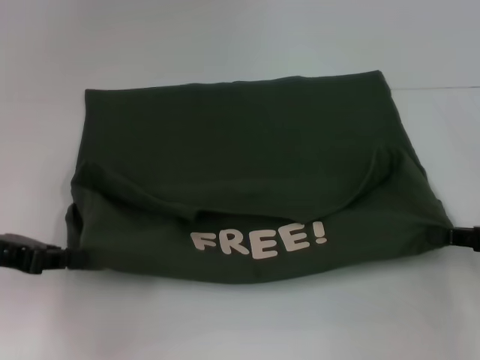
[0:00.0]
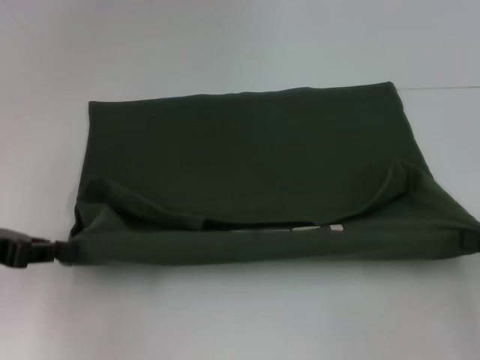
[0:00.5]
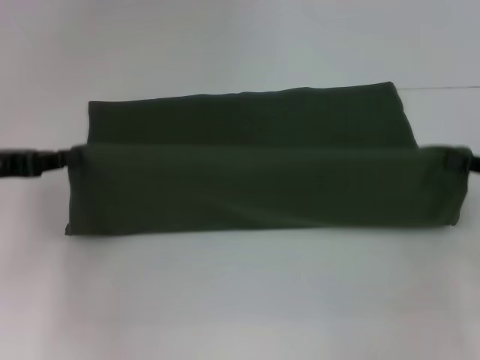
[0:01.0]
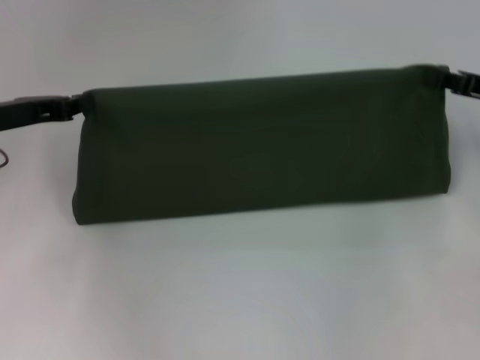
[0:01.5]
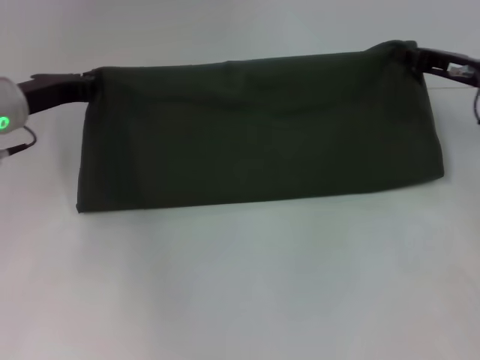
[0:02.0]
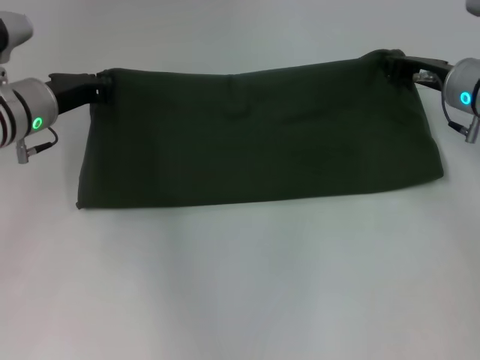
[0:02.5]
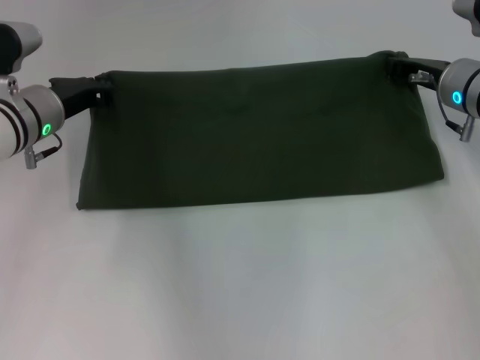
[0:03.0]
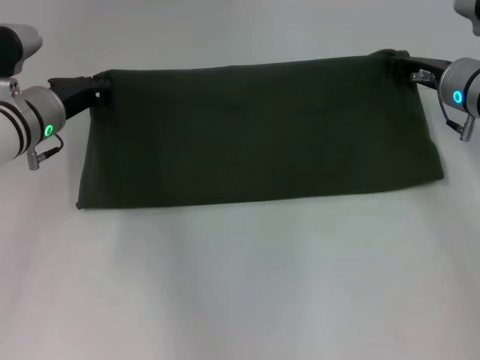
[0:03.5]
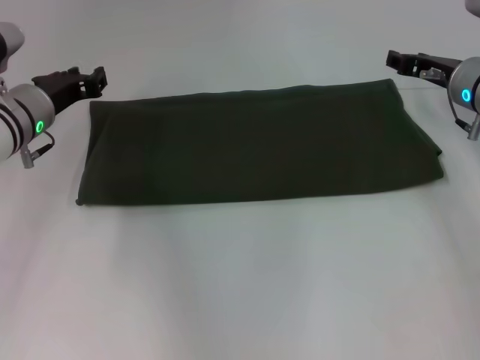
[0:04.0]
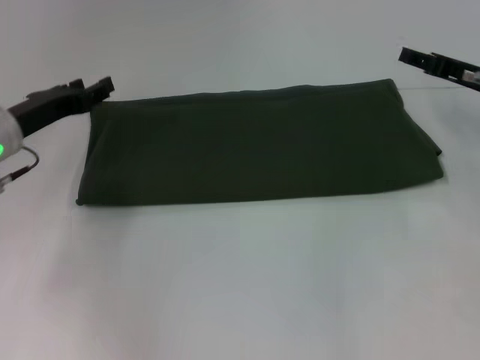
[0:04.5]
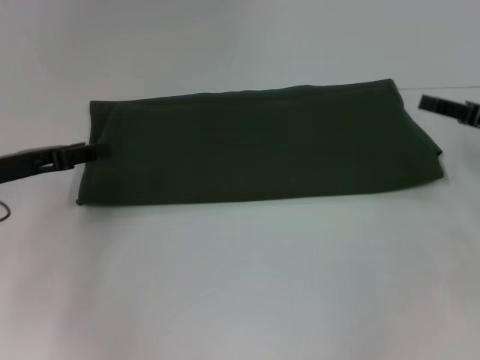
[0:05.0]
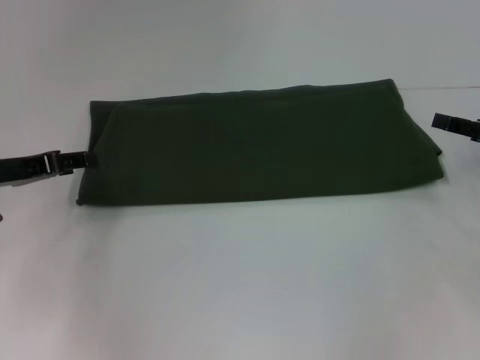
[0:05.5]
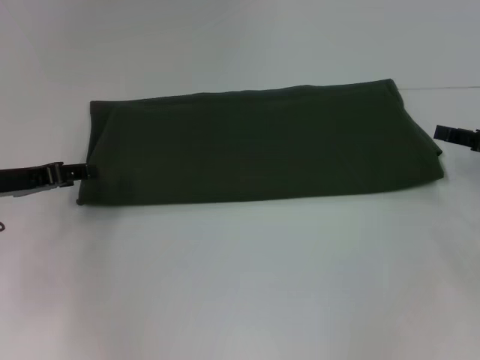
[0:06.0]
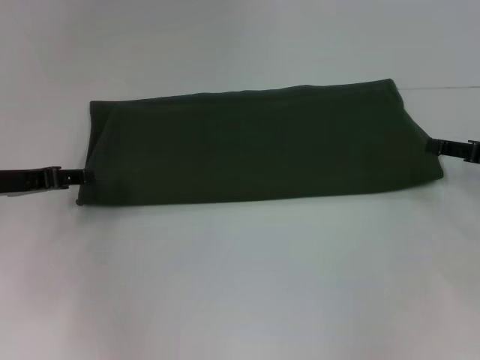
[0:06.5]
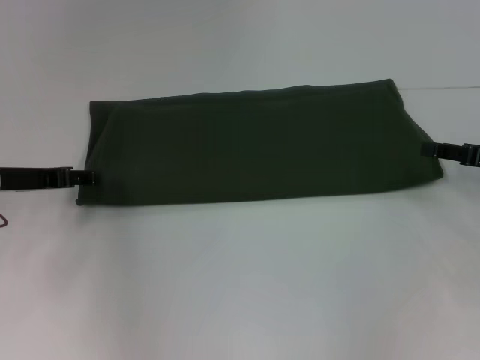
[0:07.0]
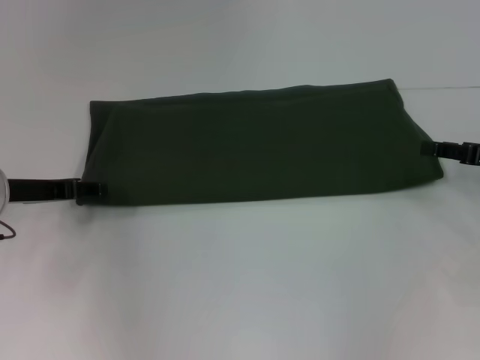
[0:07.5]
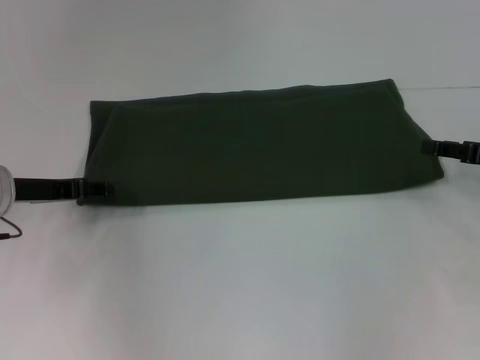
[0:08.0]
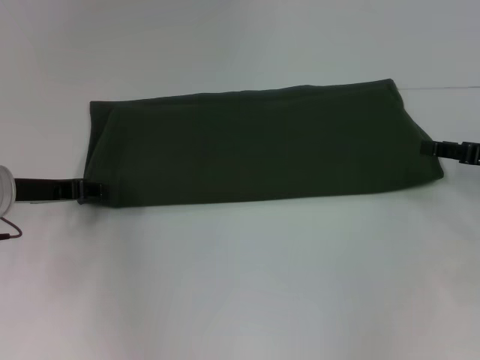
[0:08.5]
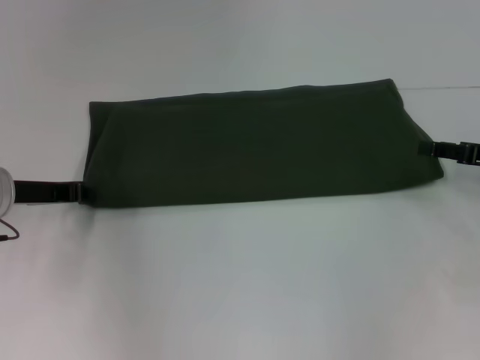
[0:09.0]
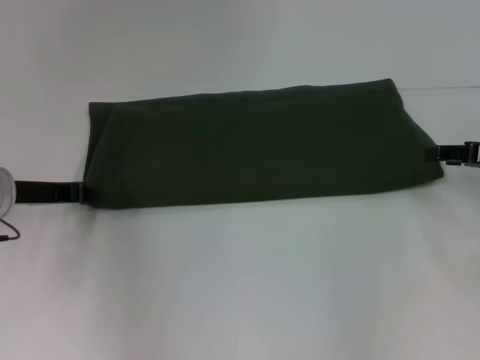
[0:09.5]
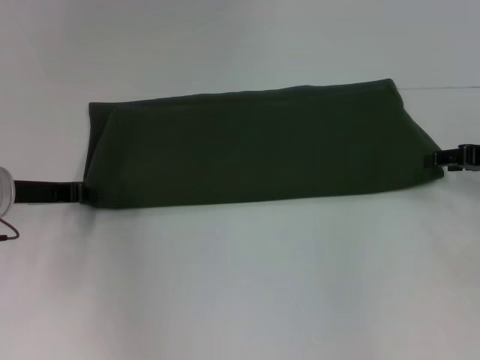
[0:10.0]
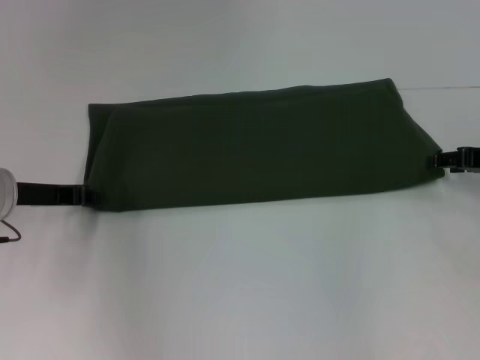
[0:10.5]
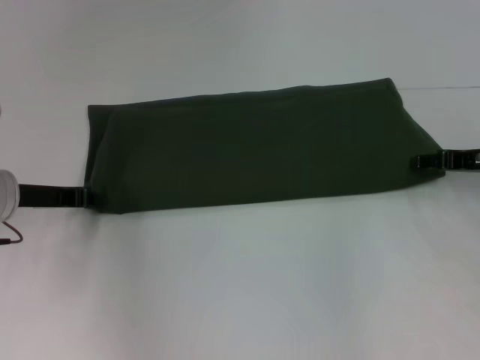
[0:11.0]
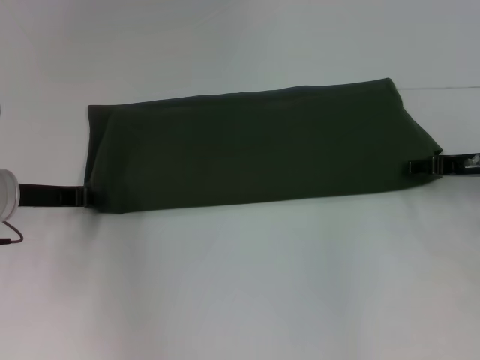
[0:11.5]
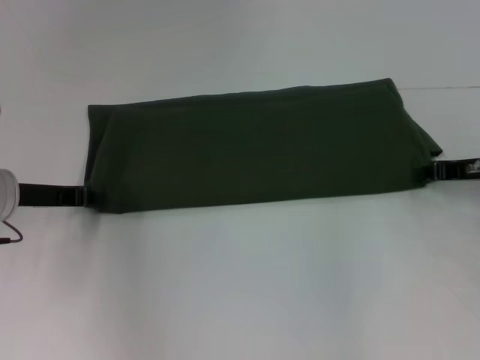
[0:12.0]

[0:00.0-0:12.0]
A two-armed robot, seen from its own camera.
Step, 0:00.5 to 0:03.5: Fold the clothes with your left hand.
Step, 0:00.5 to 0:03.5: Fold the clothes with your right hand.
0:00.0 to 0:02.0: The left gripper shifts roughly 15 cm forward and to the right, while the right gripper moves forward and to the left, about 15 cm.
0:02.0 to 0:04.0: The right gripper opens. Meanwhile the left gripper opens its fingers.
0:04.0 to 0:06.0: The left gripper goes approximately 10 cm backward and to the left. The right gripper heads to the right and backward, covering some 15 cm.
0:06.0 to 0:08.0: The grippers make only small movements.
0:08.0 to 0:10.0: The left gripper closes.
0:10.0 to 0:12.0: The grippers stay close to where they were, moving slightly.

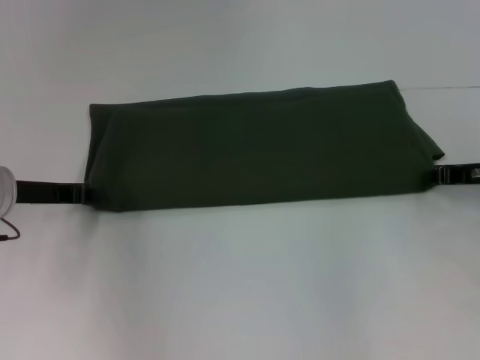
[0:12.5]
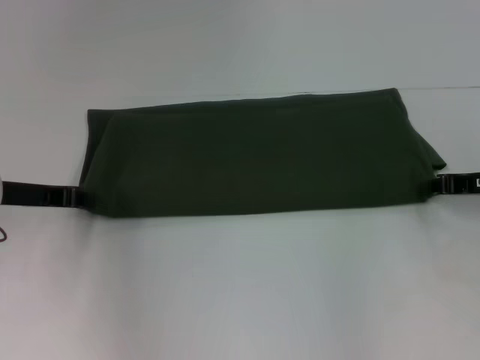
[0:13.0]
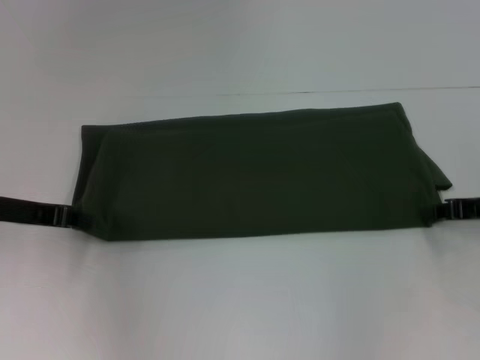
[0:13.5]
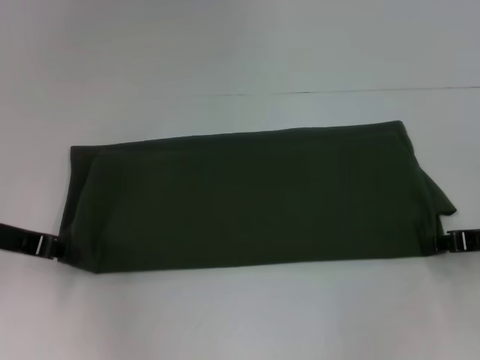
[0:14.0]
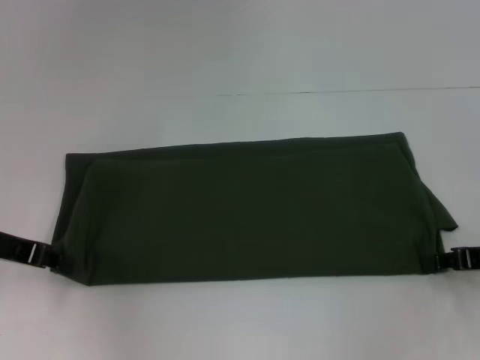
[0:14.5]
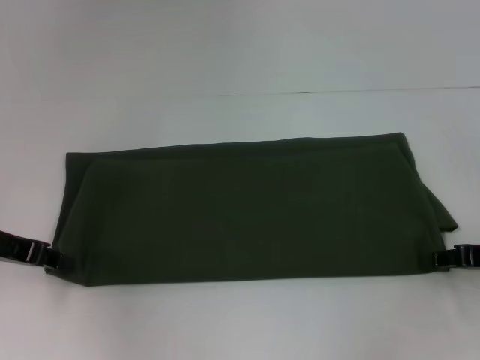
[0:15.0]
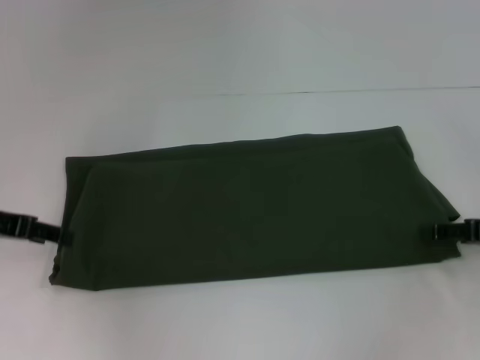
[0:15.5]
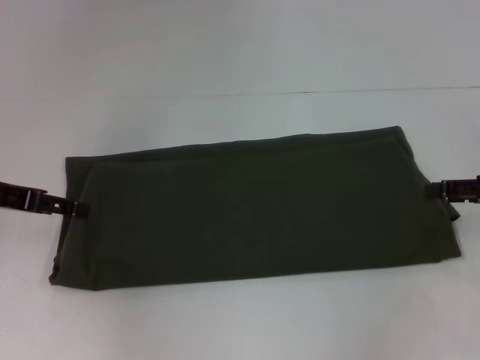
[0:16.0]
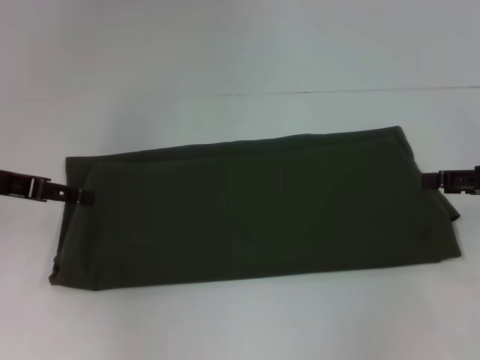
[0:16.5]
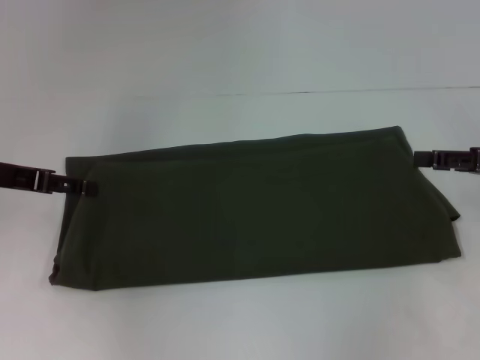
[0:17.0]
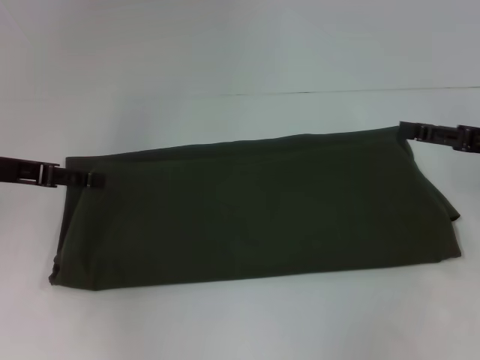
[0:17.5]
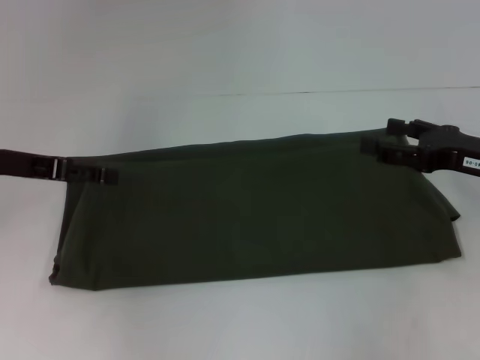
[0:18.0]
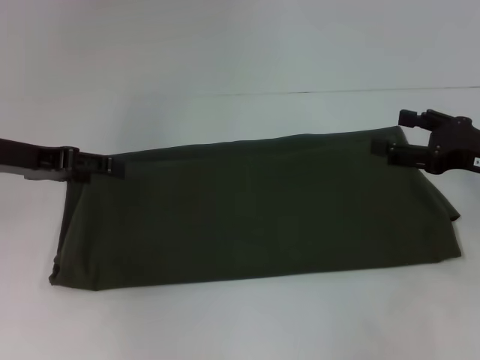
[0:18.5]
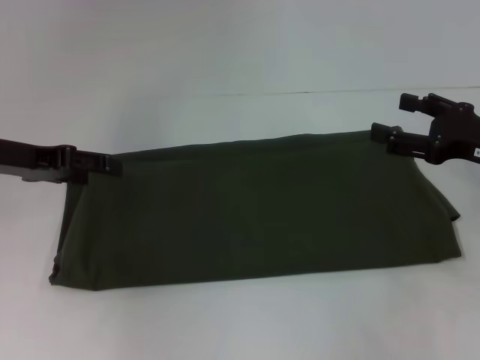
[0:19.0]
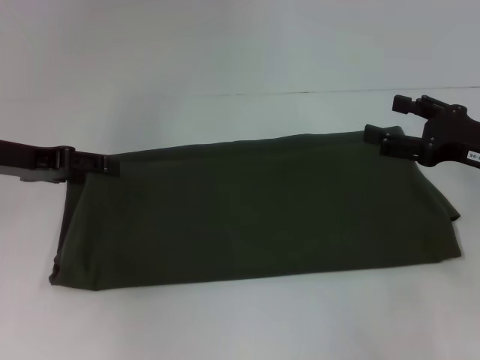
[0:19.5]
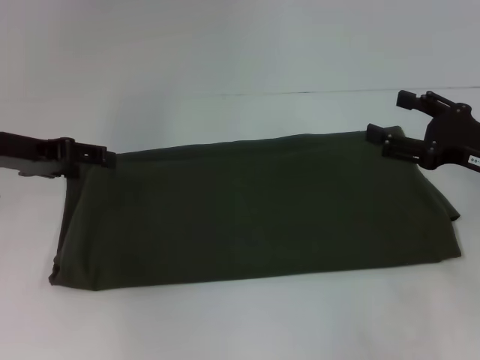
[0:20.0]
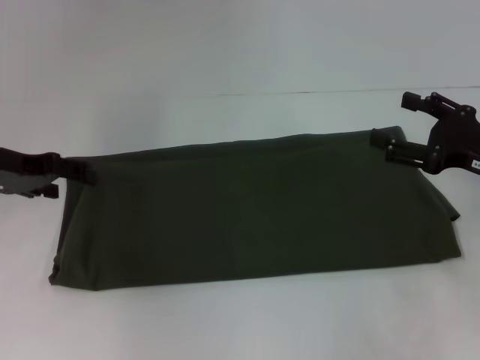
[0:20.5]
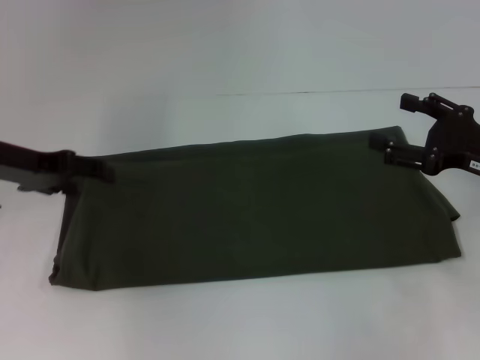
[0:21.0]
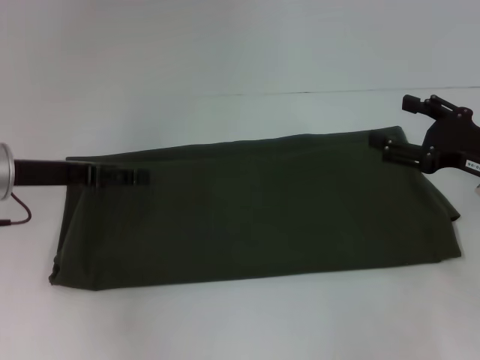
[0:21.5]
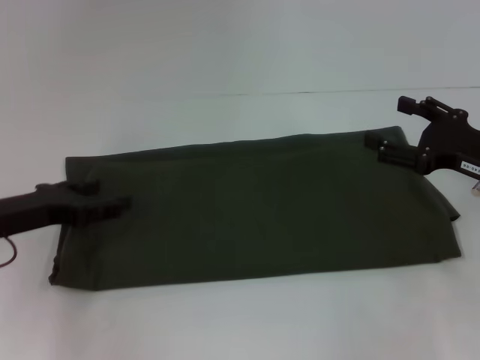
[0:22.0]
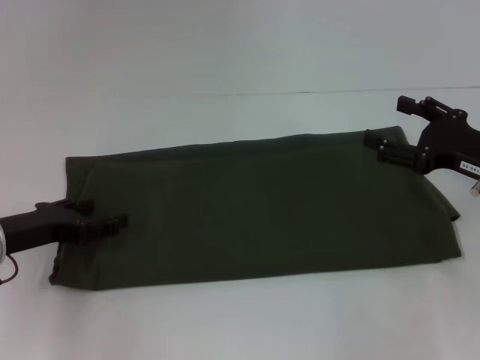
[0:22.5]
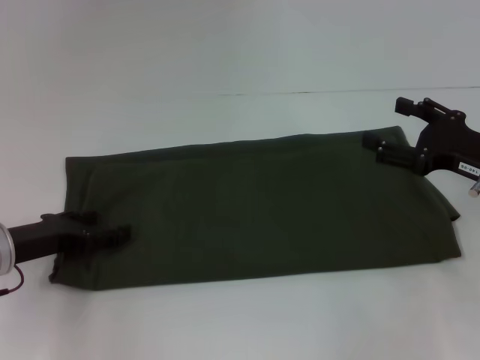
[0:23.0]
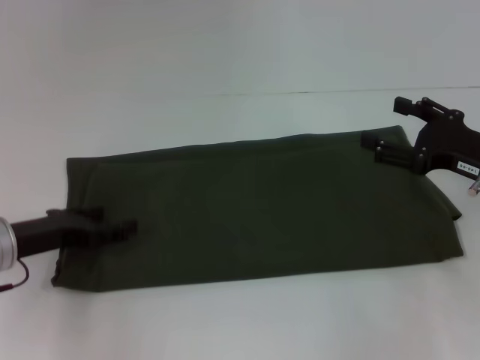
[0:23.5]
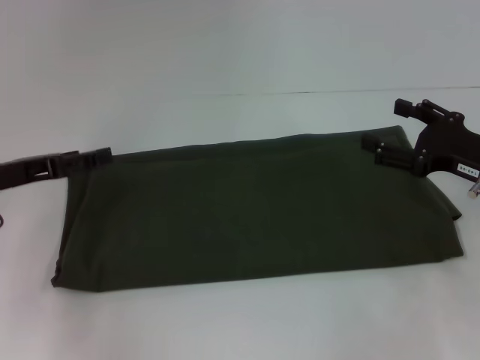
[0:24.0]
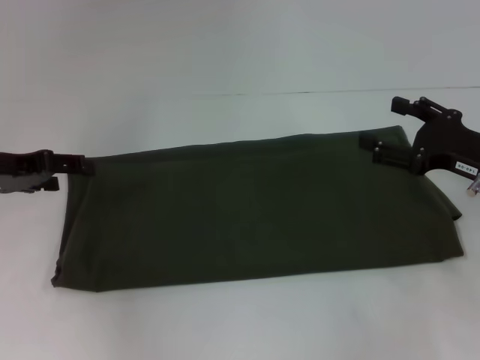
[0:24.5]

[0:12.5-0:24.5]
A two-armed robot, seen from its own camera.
Step, 0:12.5 to 0:15.5: Pull the clothes with your left hand.
Step, 0:12.5 to 0:15.5: Pull the clothes with your right hand.
0:12.5 to 0:14.5: The right gripper moves backward, roughly 10 cm. The left gripper shifts by roughly 5 cm.
0:14.5 to 0:16.5: The left gripper opens its fingers; the right gripper moves upward, about 5 cm, and opens its fingers.
0:18.5 to 0:20.5: The grippers stay close to where they were, moving slightly.
0:20.5 to 0:22.5: The left gripper travels downward and backward by approximately 10 cm.
0:22.5 to 0:24.5: The left gripper moves upward and forward, about 10 cm.

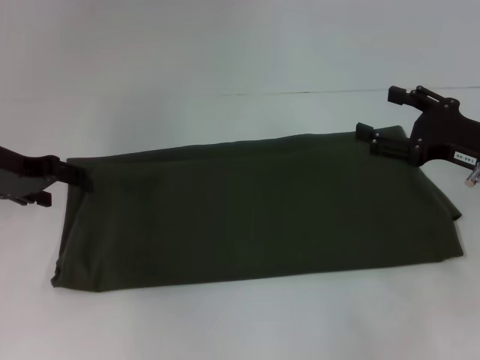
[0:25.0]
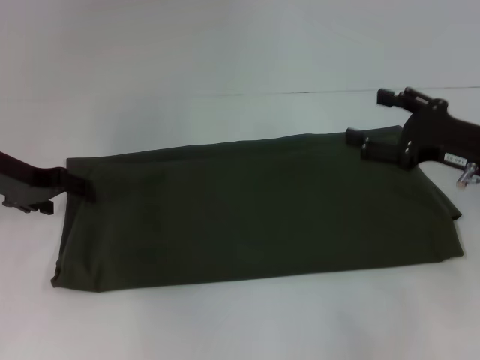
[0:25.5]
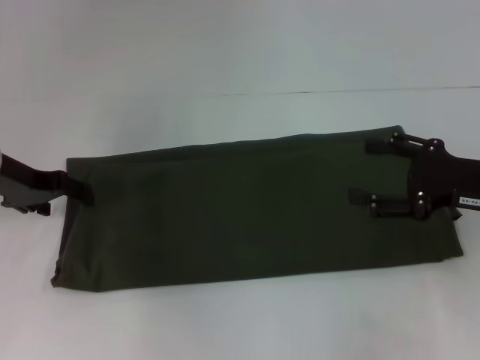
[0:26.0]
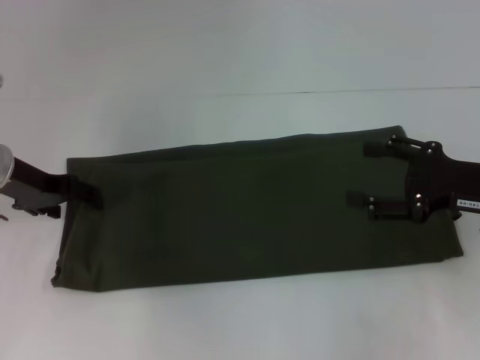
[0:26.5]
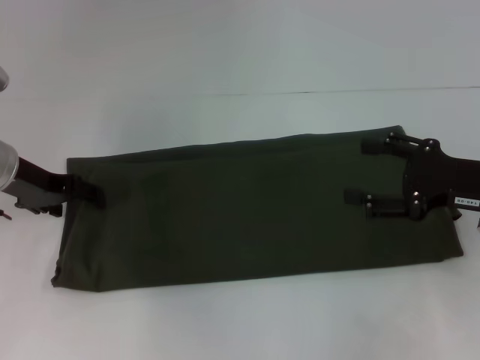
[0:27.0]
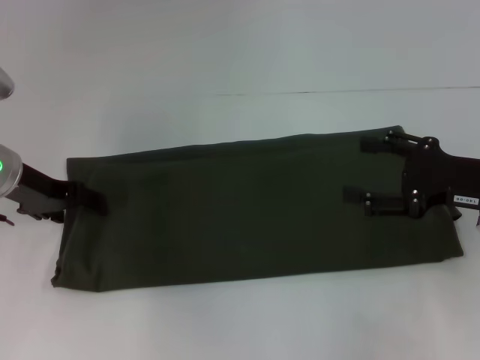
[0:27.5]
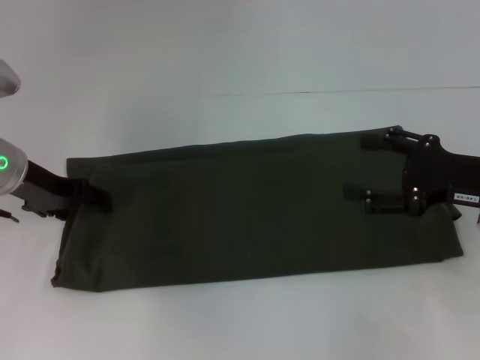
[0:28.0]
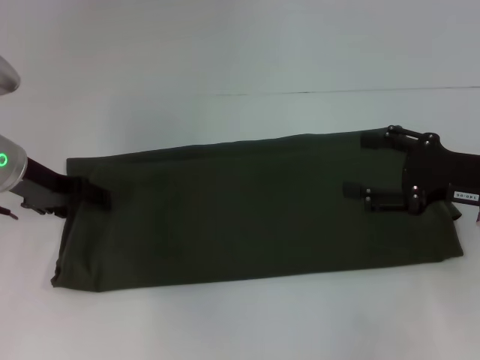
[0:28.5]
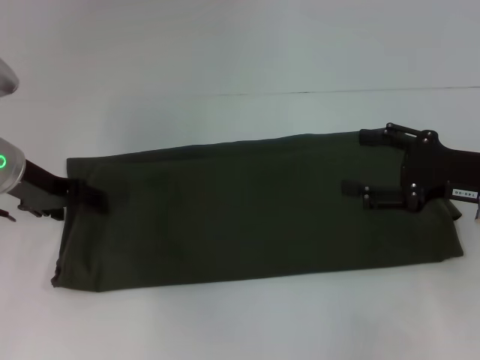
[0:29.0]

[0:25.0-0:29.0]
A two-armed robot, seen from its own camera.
0:25.0 to 0:27.0: The grippers stay close to where they were, moving slightly.
0:27.0 to 0:29.0: Both grippers stay put.
